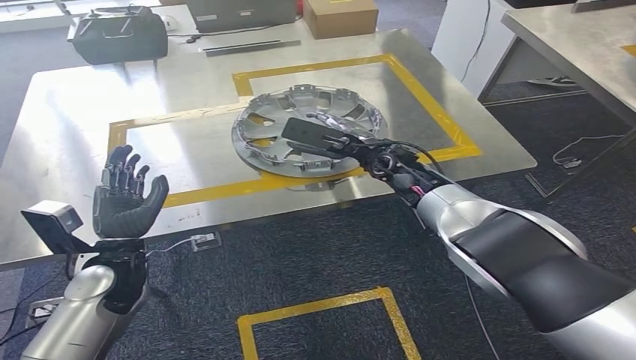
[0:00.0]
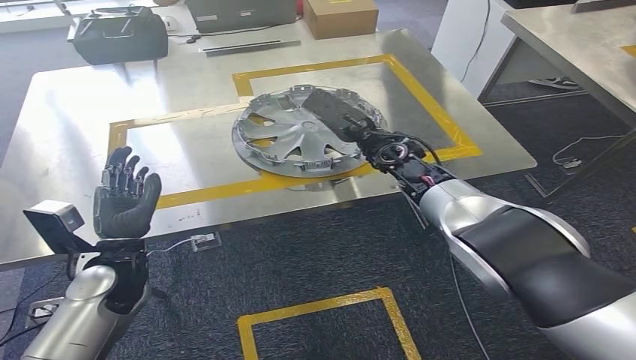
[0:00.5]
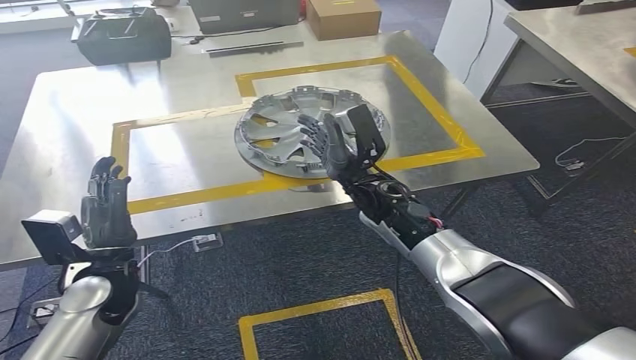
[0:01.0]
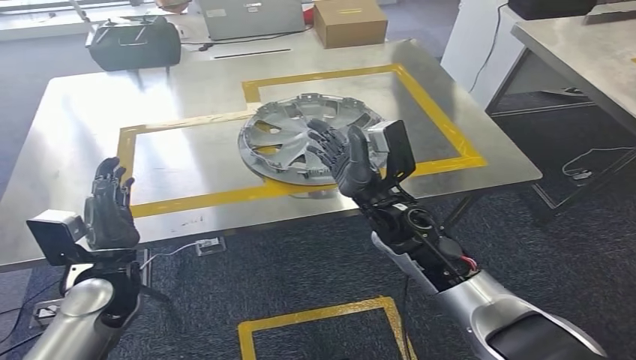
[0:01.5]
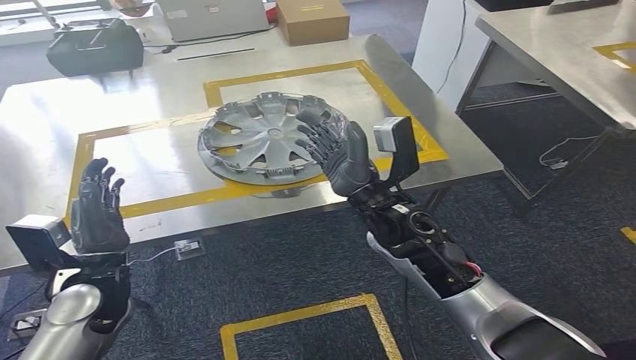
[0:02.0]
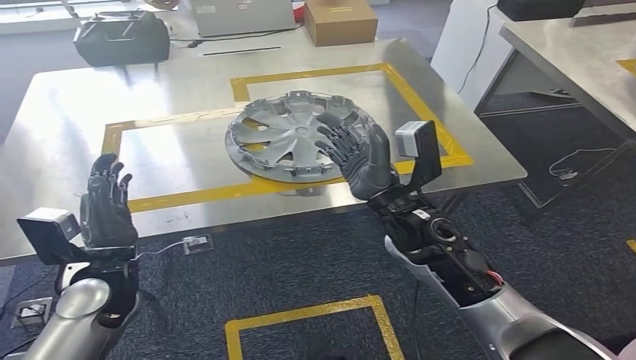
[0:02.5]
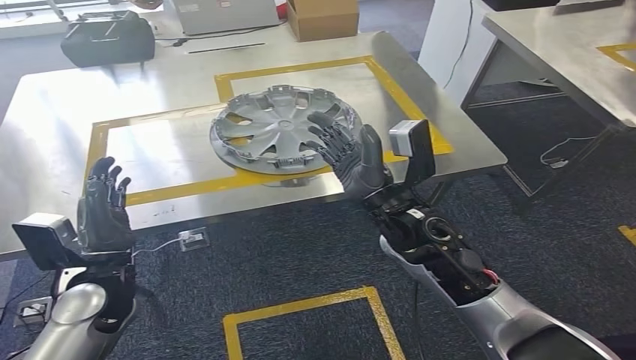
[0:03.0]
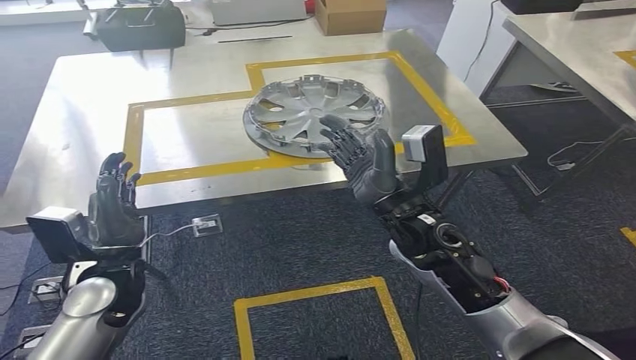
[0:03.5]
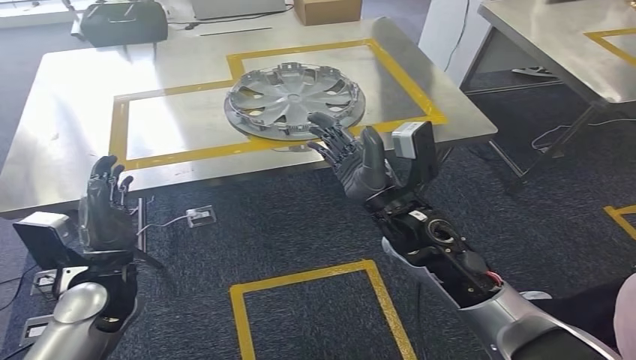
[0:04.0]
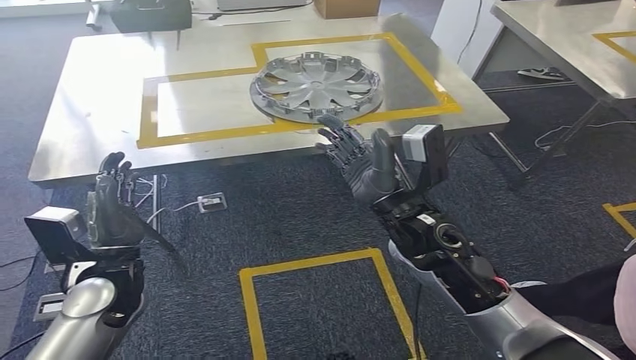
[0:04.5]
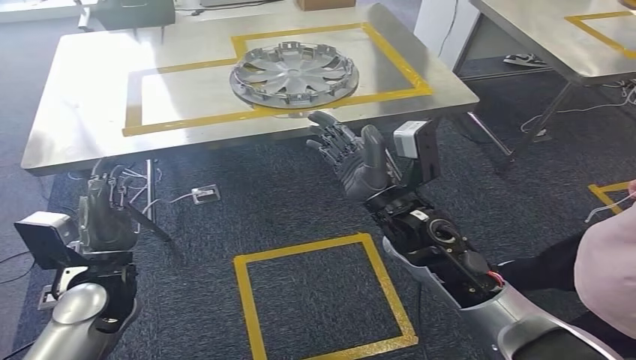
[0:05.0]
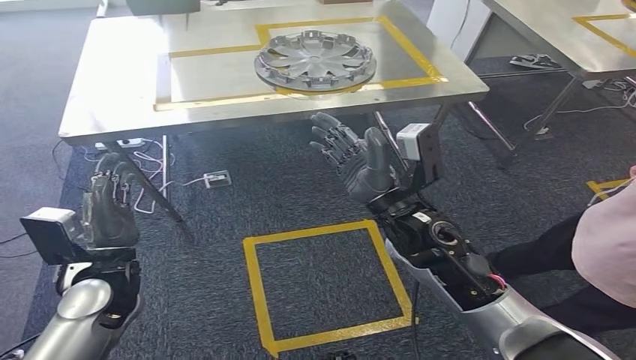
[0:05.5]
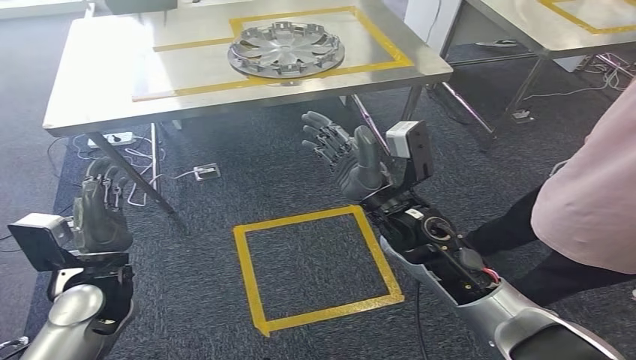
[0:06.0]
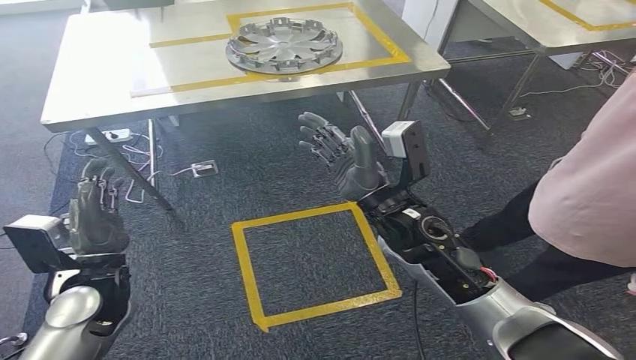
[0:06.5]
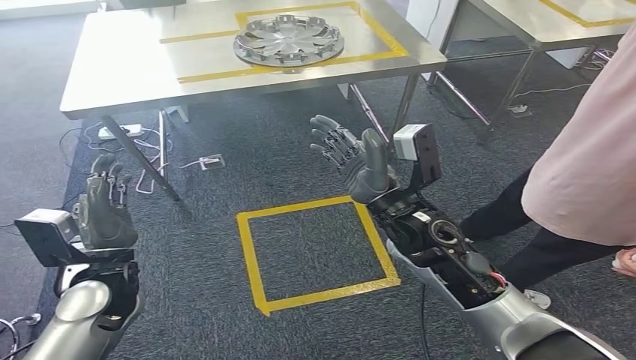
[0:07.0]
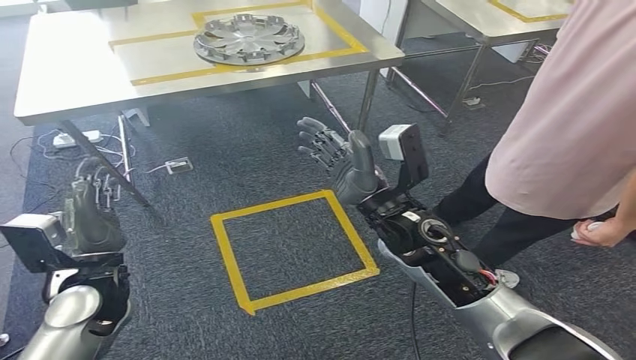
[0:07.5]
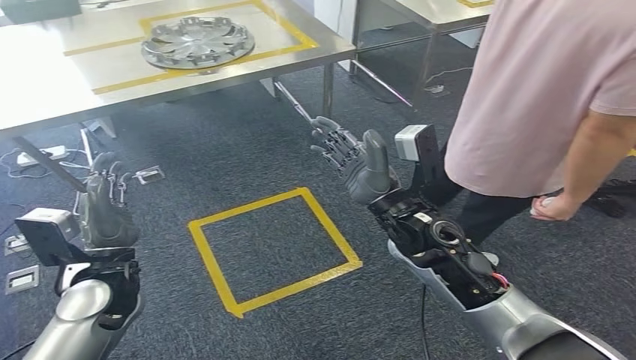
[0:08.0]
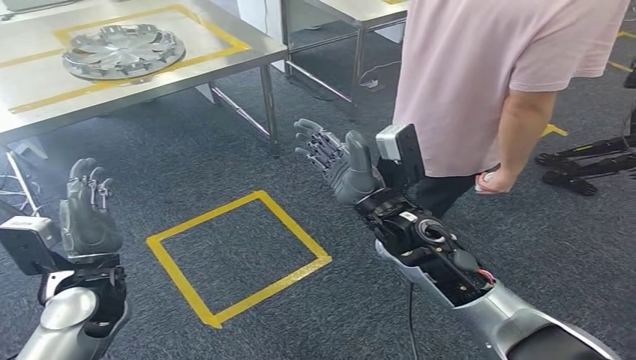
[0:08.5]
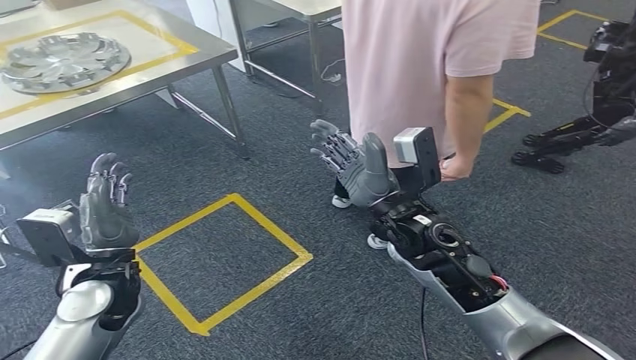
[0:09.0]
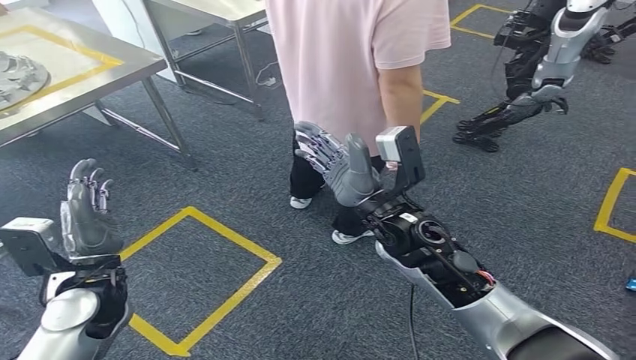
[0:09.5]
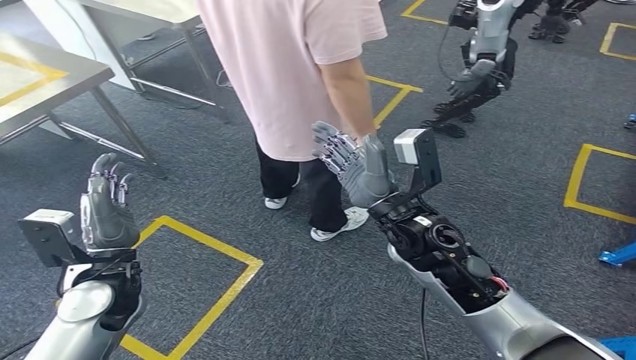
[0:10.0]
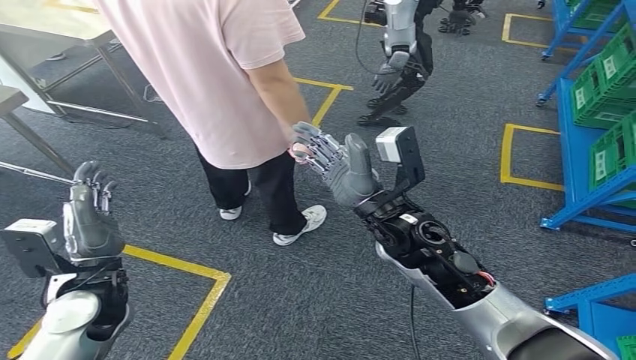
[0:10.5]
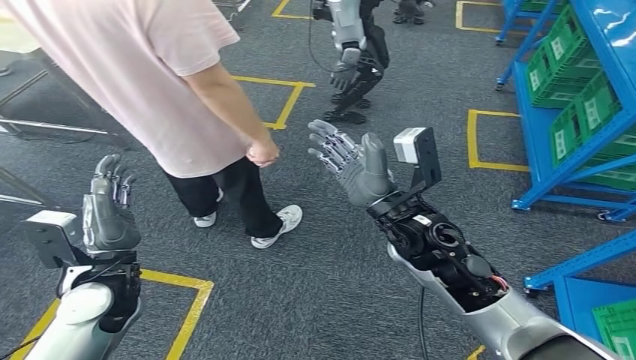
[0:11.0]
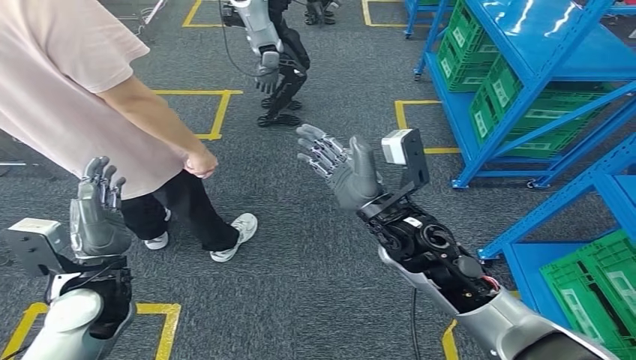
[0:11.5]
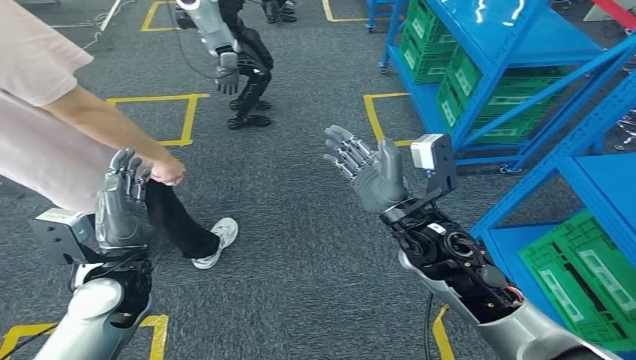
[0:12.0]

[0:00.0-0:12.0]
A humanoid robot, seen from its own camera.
Step, 0:00.0 to 0:02.0: Insert the small parts into the corresponding slots on the workbench.

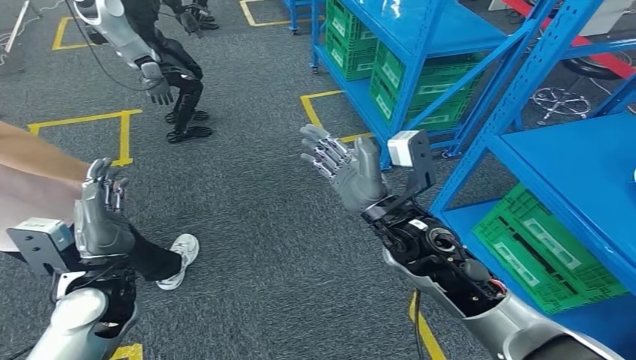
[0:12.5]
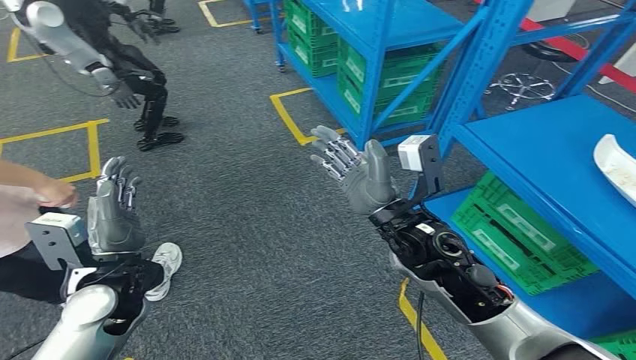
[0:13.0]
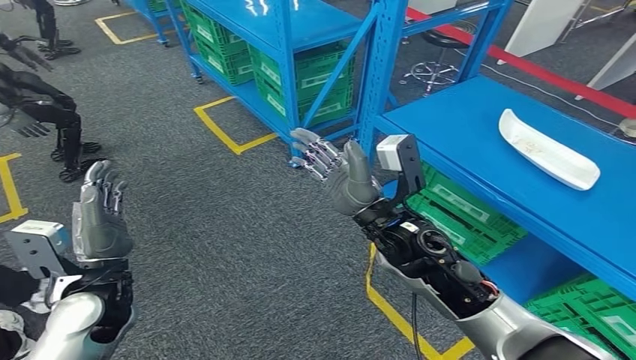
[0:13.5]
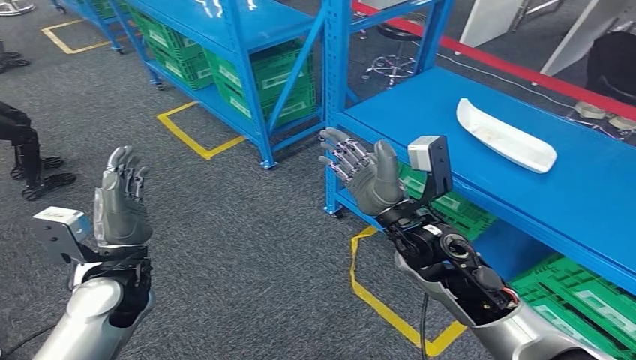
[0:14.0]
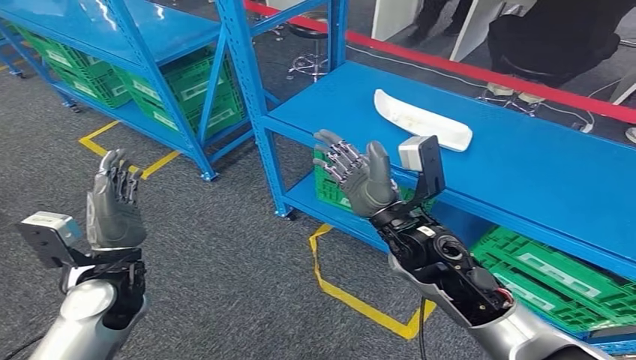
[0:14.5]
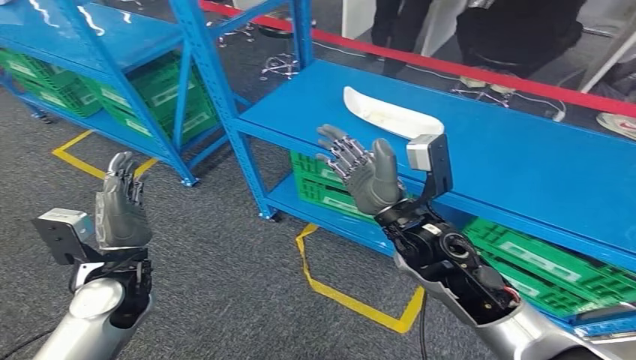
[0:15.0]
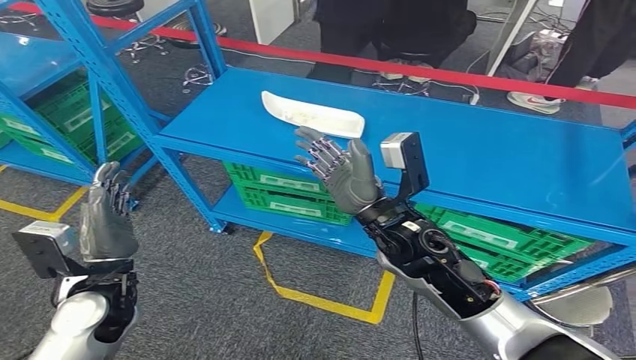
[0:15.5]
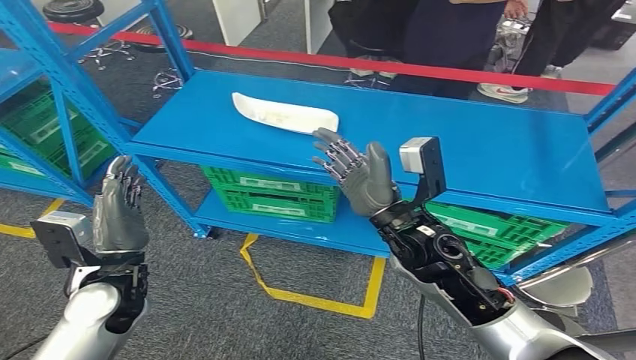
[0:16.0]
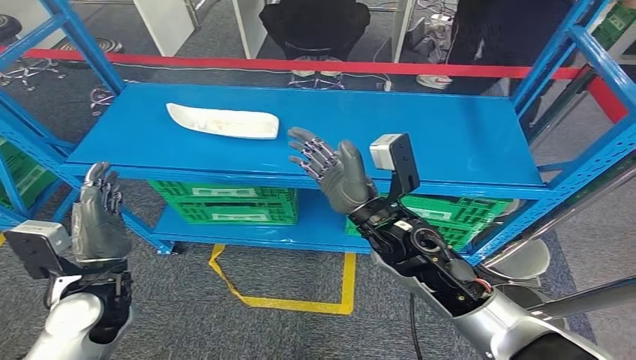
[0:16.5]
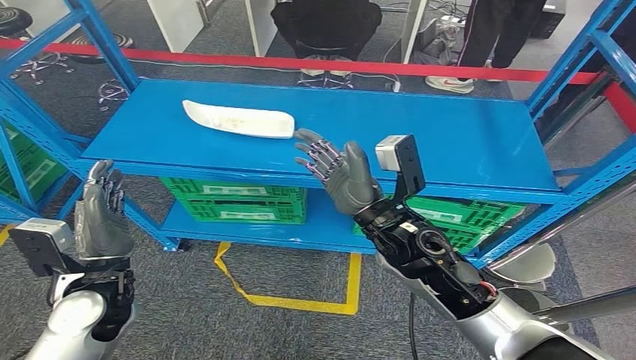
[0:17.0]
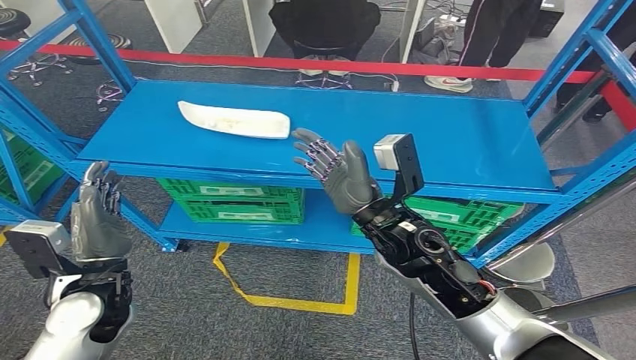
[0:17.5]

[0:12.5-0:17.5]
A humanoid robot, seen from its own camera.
Step, 0:12.5 to 0:17.5: Return to the initial position at the workbench.
